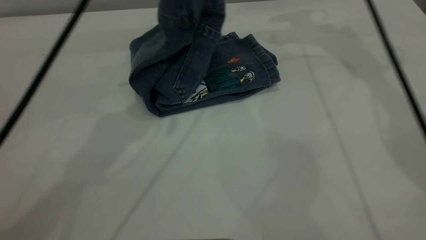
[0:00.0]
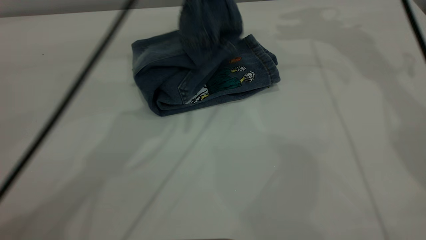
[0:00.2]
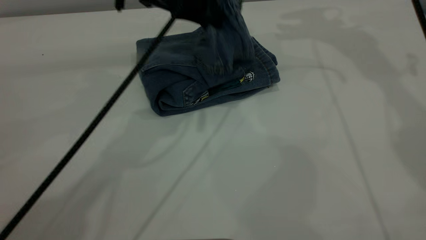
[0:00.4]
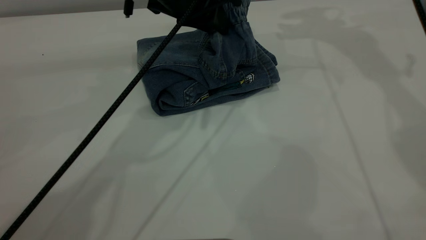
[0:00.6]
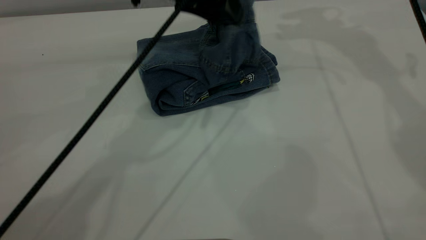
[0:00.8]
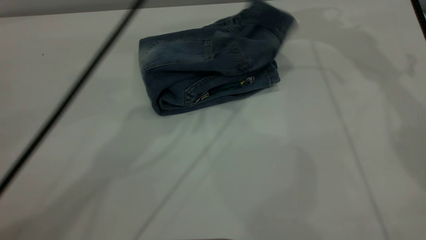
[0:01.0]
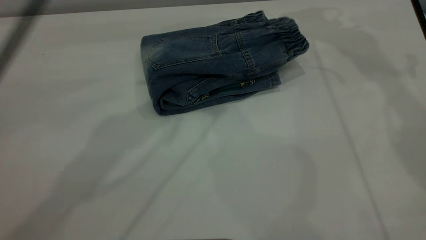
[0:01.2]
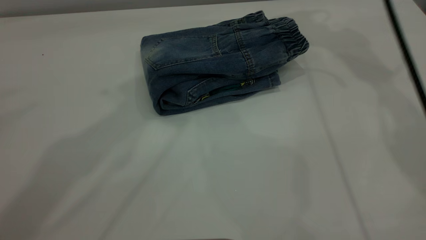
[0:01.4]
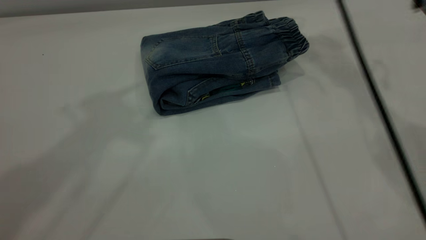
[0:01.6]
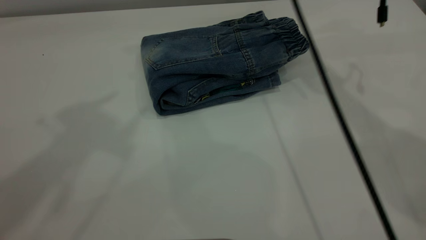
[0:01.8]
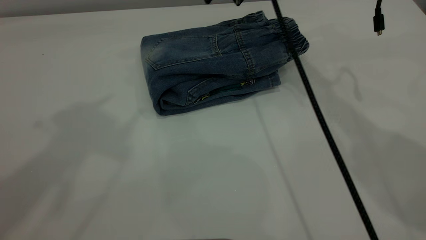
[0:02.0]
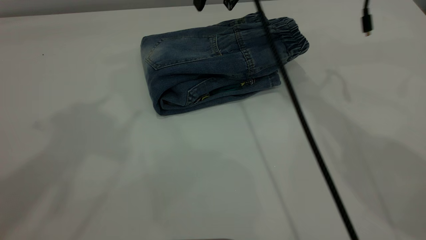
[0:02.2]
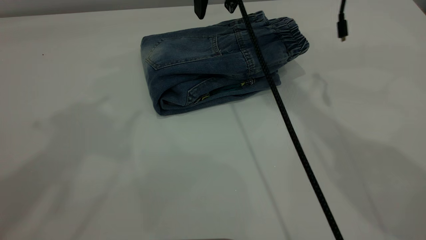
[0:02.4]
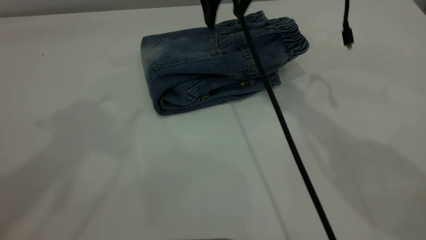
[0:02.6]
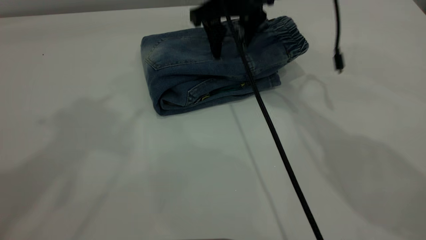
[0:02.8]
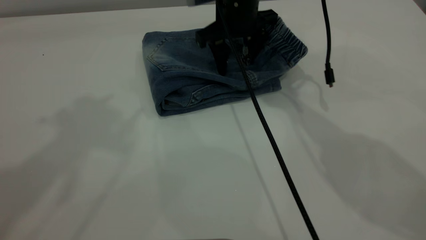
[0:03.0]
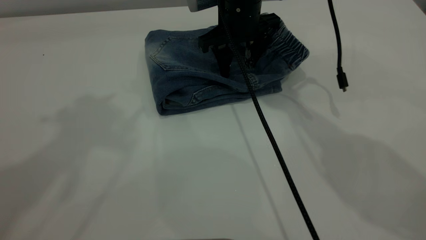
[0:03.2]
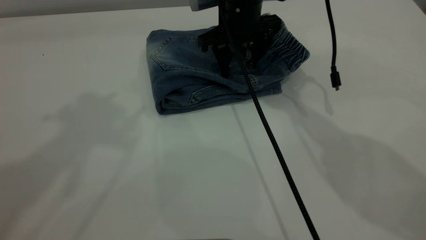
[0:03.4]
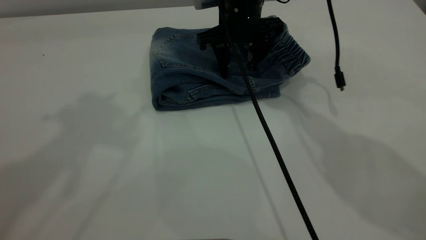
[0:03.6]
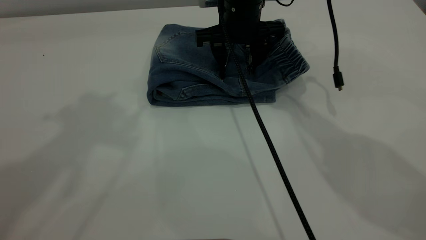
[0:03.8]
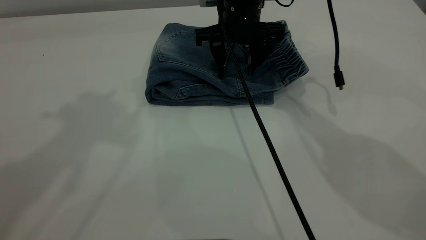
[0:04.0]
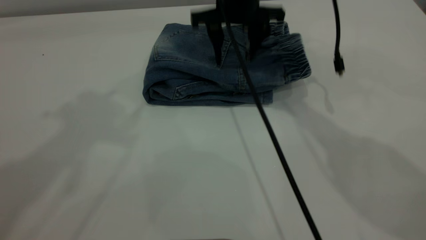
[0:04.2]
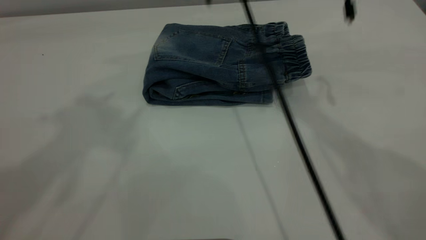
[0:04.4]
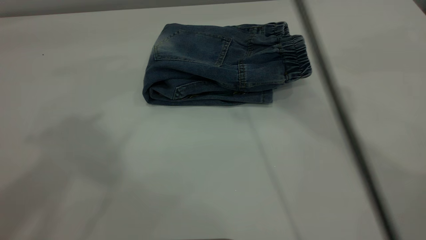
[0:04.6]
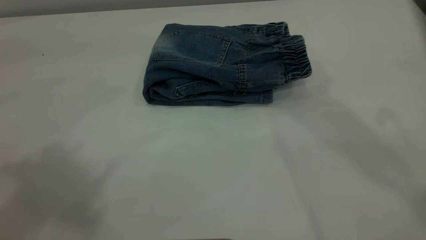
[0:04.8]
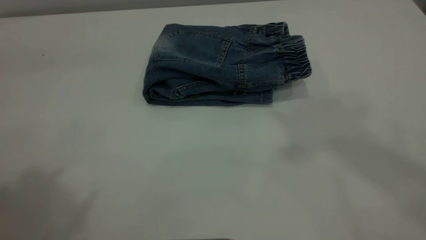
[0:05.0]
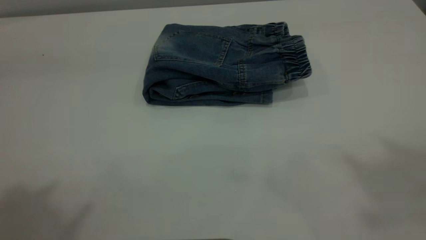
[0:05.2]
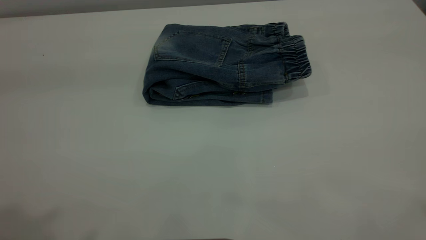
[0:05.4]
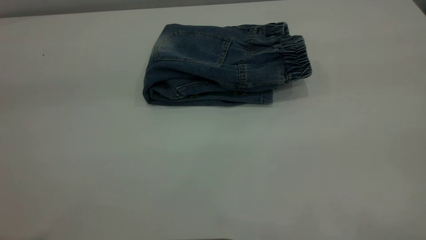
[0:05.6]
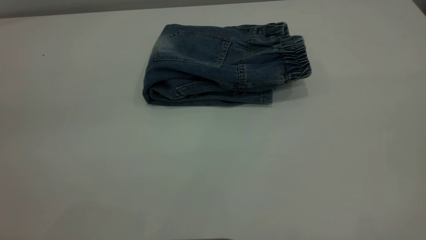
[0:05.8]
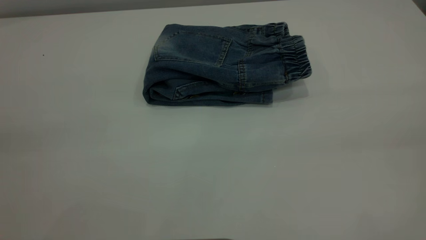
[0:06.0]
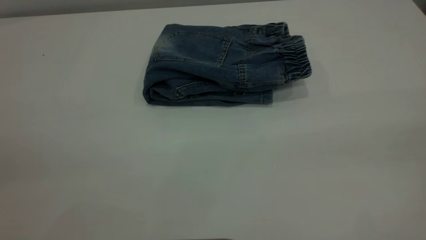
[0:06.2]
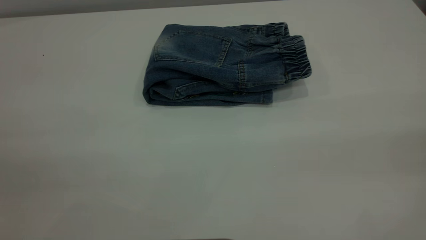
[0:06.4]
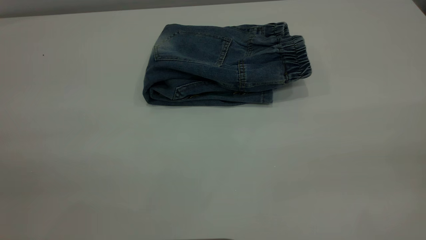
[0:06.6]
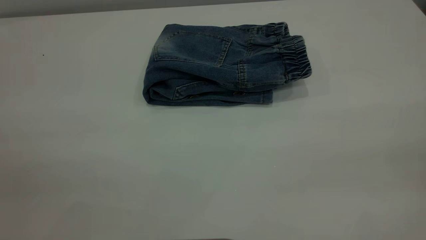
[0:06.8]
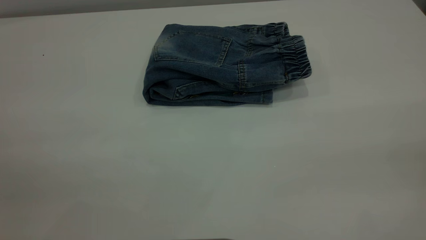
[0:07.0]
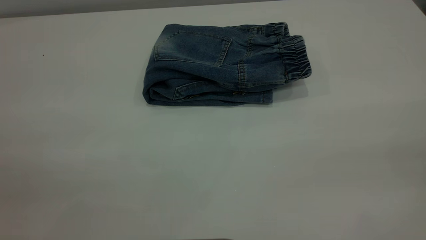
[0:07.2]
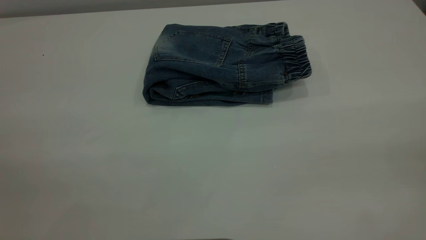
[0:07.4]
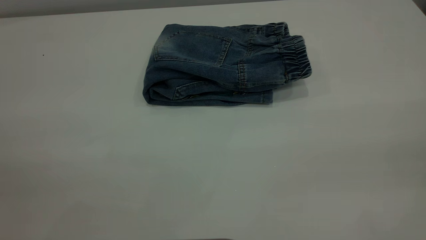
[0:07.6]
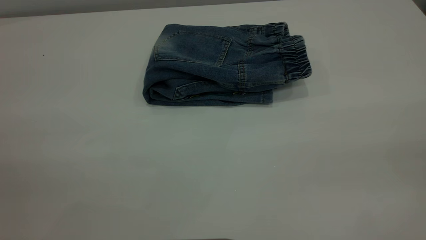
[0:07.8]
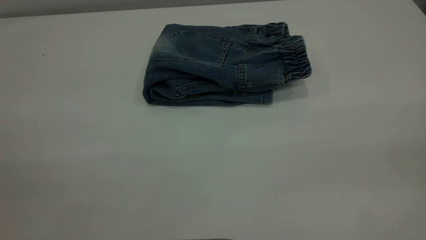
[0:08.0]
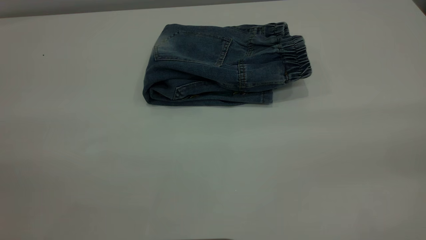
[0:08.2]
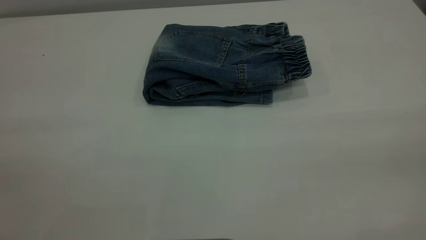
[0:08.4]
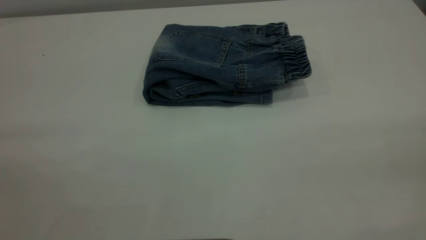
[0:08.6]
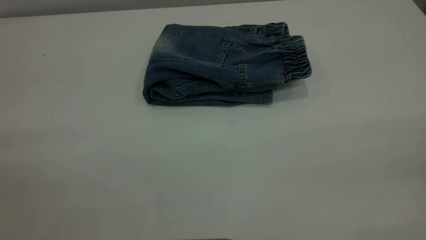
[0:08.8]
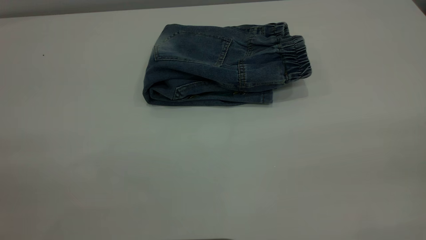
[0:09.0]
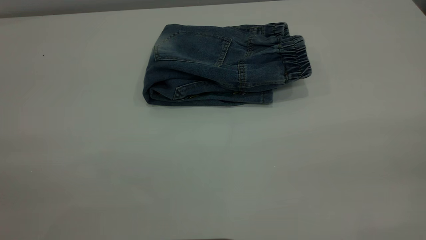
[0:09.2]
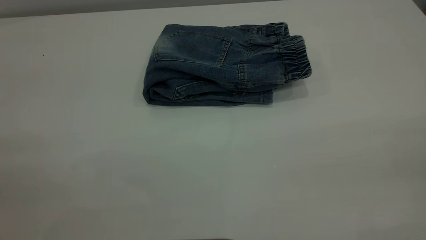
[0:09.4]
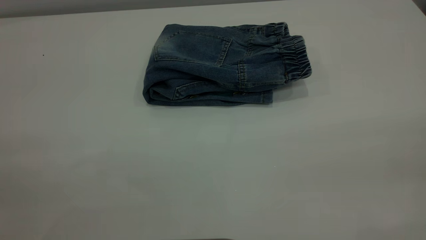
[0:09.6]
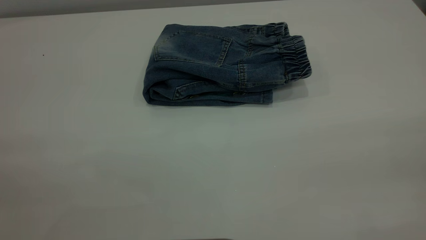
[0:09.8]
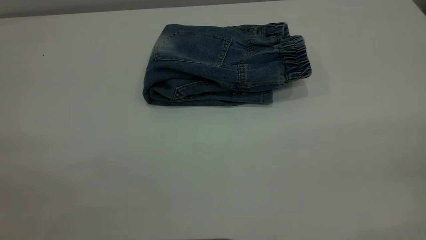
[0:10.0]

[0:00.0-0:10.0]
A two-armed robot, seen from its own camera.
0:00.0 to 0:01.4: The left gripper goes approximately 15 cm upward, and opens up.
0:01.4 to 0:02.8: The left gripper shifts roughly 5 cm to the left. The right gripper goes approximately 20 cm downward and to the left.
0:04.2 to 0:05.8: The right gripper goes approximately 60 cm backward, upward and to the right, while the left gripper shifts some 25 cm backward.
